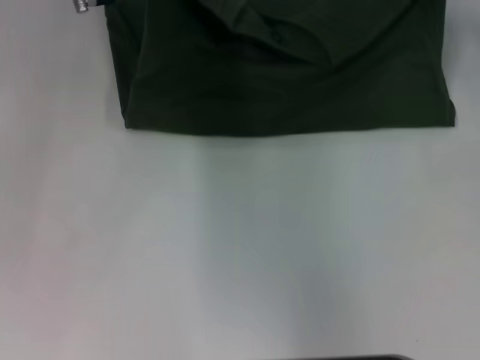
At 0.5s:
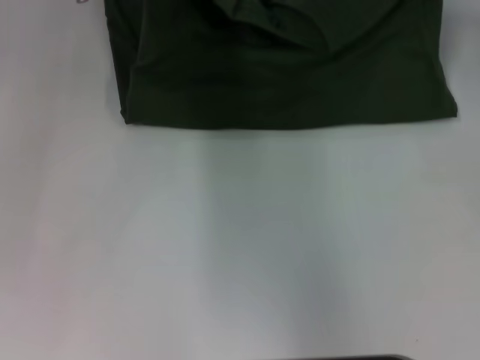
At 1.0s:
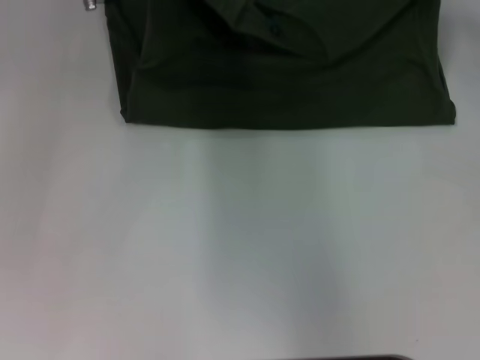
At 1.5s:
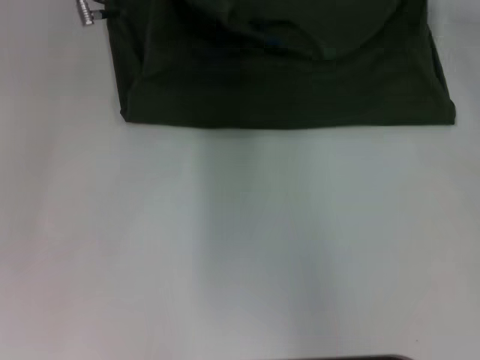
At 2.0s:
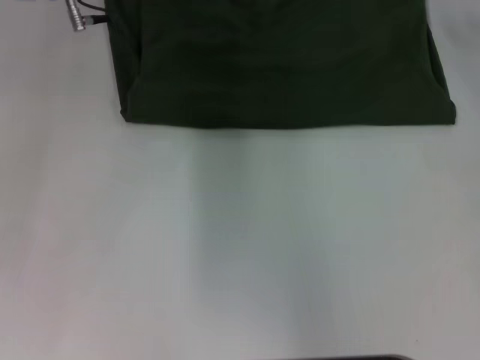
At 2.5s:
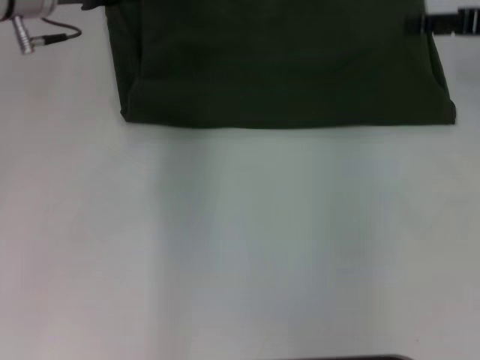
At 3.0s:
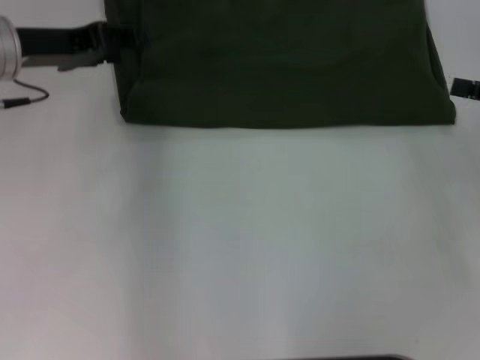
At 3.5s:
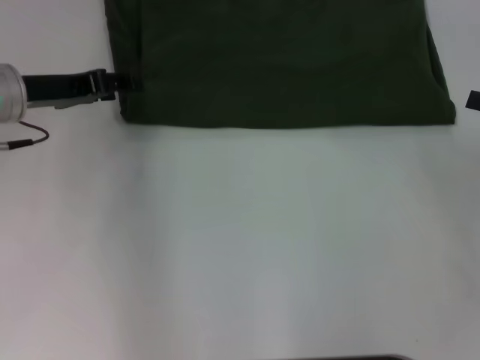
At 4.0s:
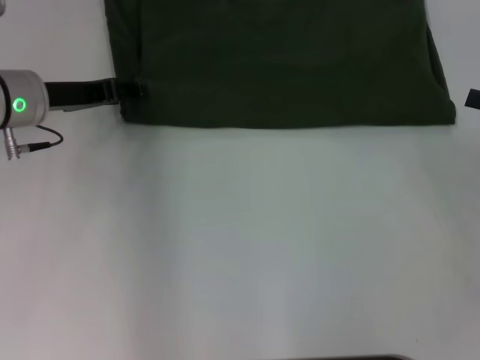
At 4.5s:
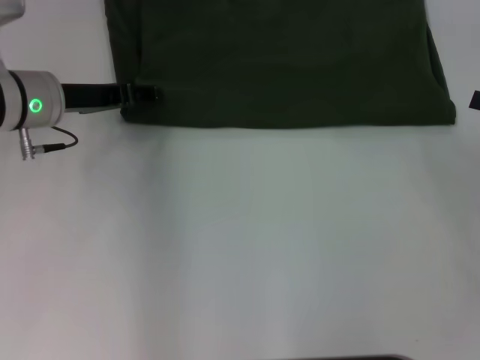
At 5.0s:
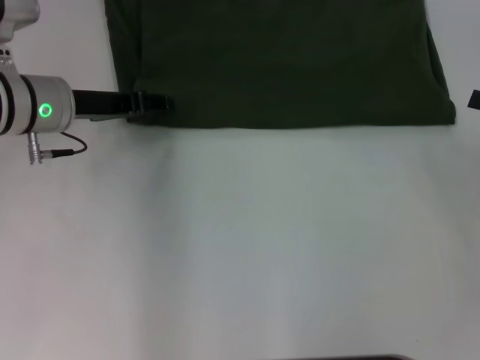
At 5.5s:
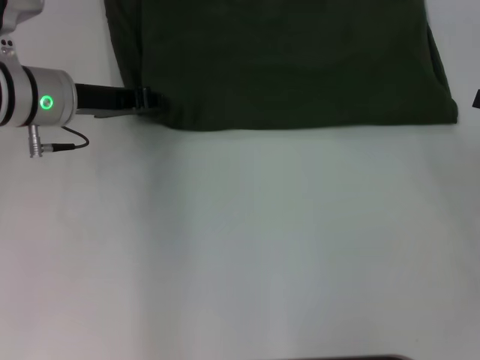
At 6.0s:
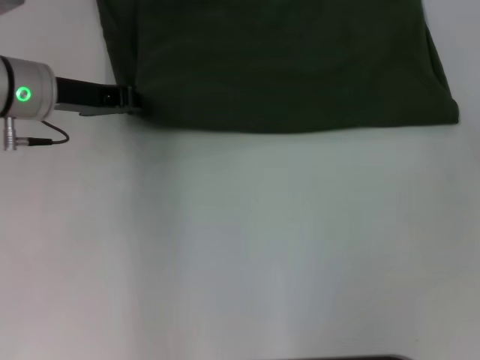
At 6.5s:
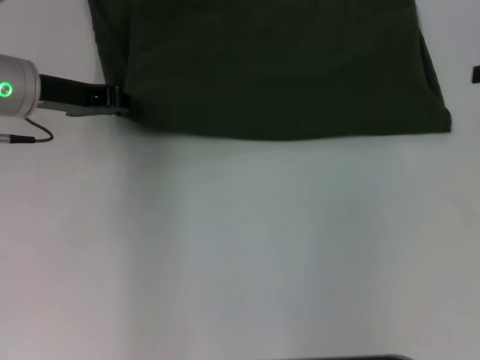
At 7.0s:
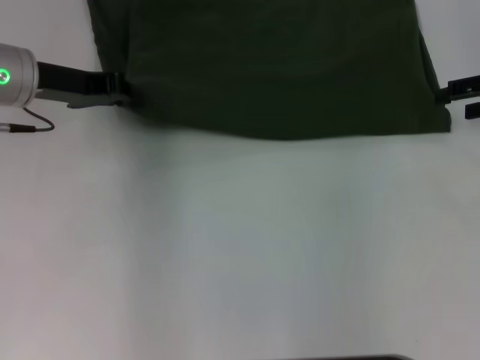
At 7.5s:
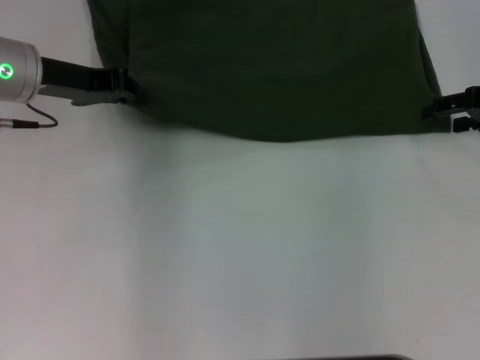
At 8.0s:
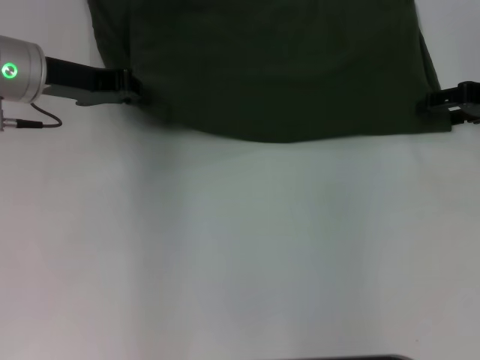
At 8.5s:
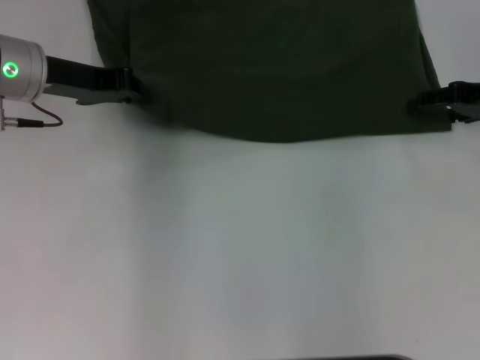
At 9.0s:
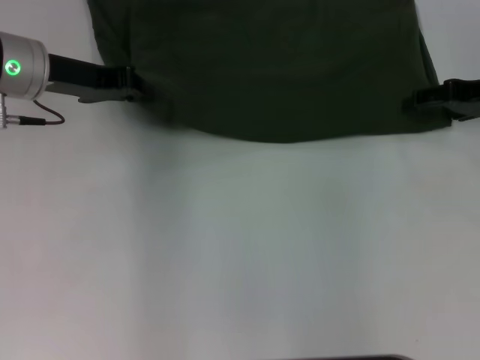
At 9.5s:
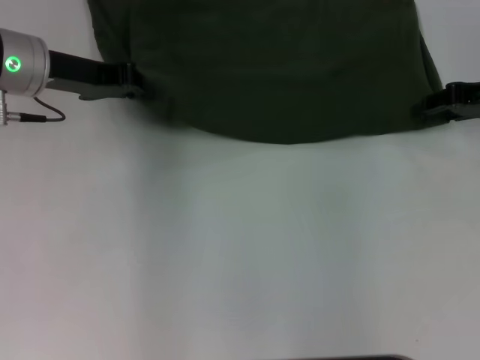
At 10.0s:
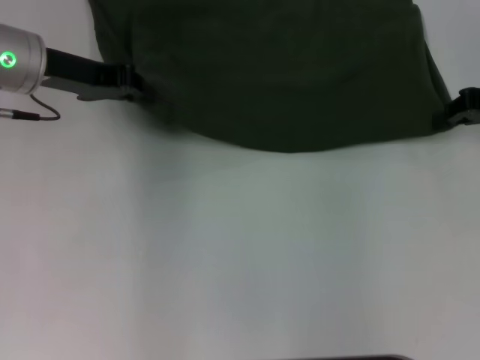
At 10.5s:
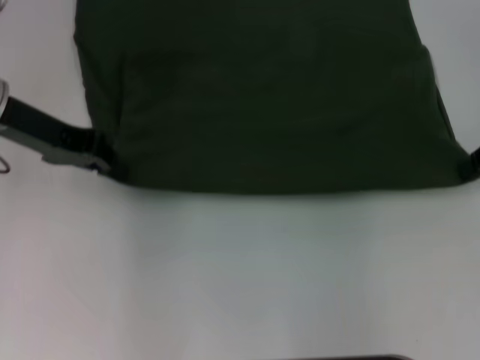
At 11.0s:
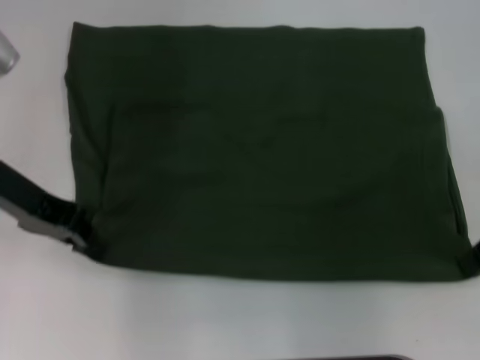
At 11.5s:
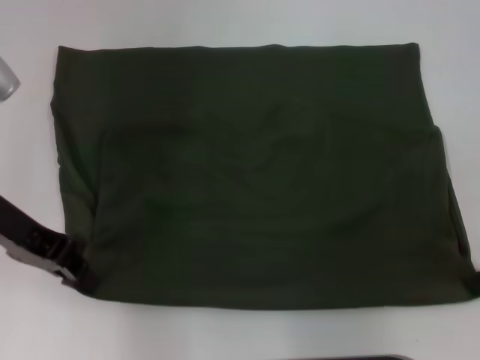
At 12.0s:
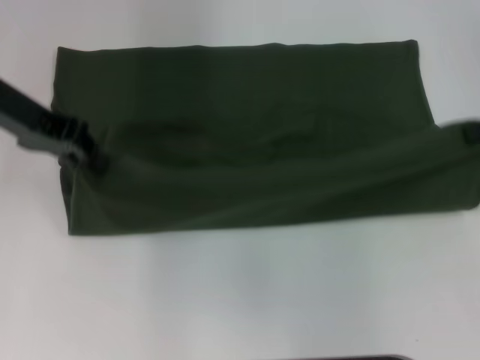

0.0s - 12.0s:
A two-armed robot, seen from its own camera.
Step, 2.0s - 11.0s: Pull the clothes with your left hand.
Step, 2.0s - 11.0s: Pull the clothes with your right hand.
0.0s - 2.0s: The left gripper opens, while the right gripper opens up.
2.0s - 4.0s: The right gripper heads backward, downward and to the right, covering roughly 25 cm; the left gripper heads backward, downward and to the left, covering about 15 cm.
4.0s - 6.0s: The right gripper changes place by approximately 5 cm. Meanwhile the left gripper closes its fingers.
6.0s - 8.0s: The right gripper is displaced to the left and forward by approximately 15 cm.
8.0s - 10.0s: The right gripper closes up.
10.0s - 12.0s: The right gripper moves upward, about 5 cm, and reaches about 10 cm backward, then returns; the left gripper reaches roughly 10 cm backward, then returns.

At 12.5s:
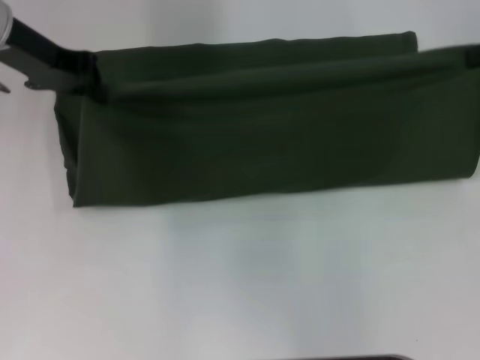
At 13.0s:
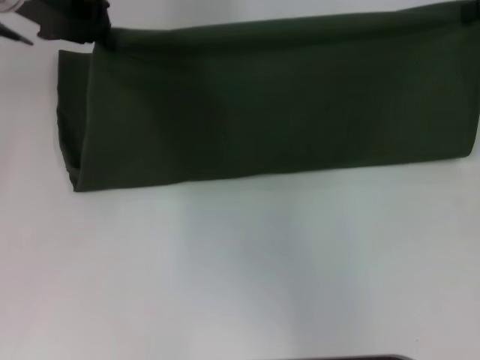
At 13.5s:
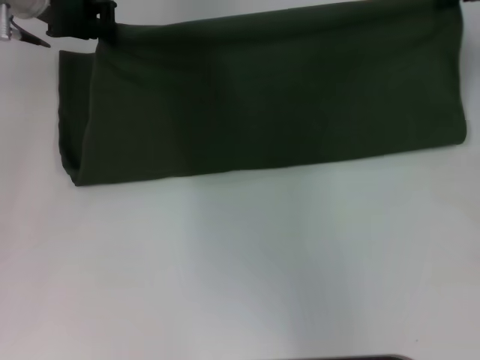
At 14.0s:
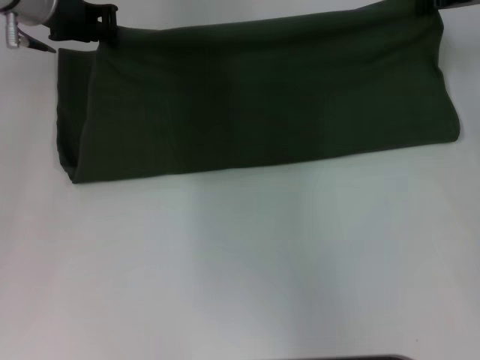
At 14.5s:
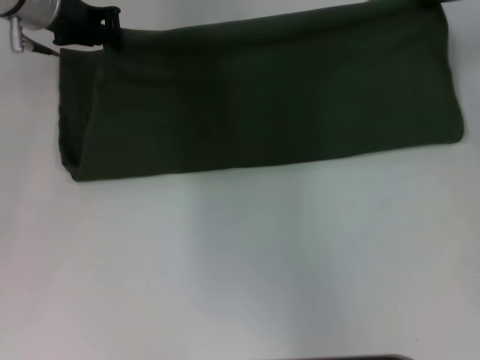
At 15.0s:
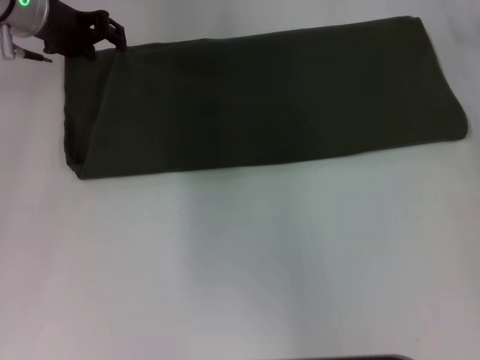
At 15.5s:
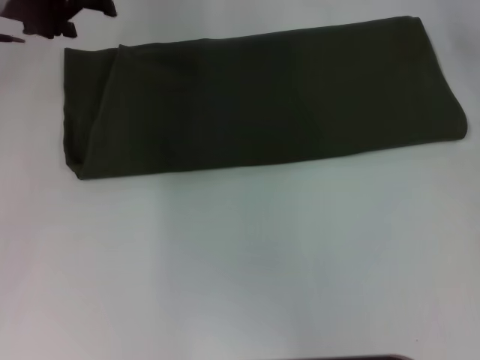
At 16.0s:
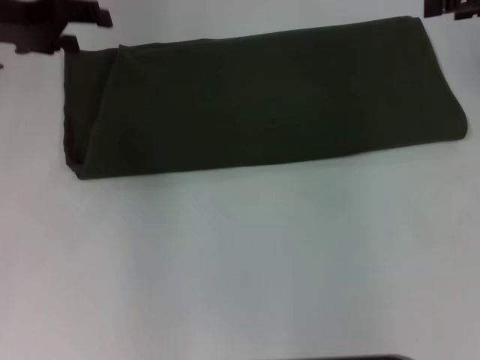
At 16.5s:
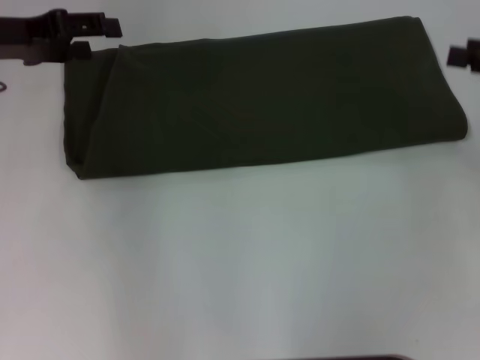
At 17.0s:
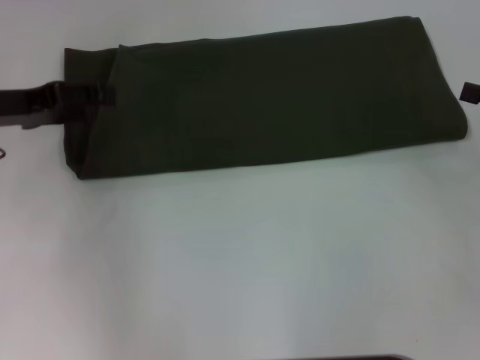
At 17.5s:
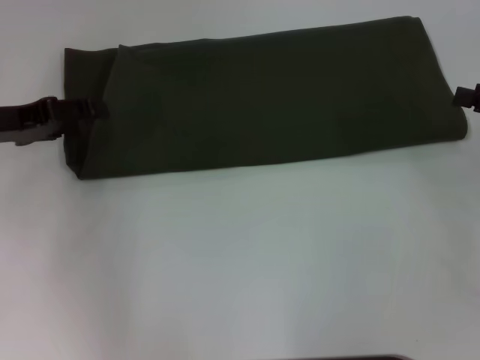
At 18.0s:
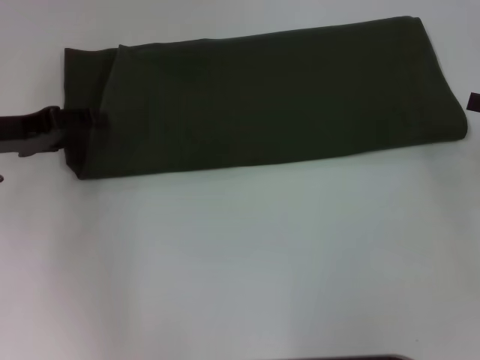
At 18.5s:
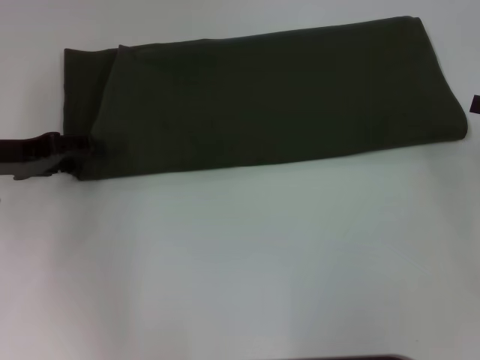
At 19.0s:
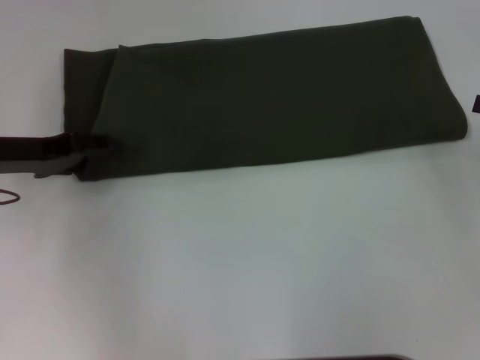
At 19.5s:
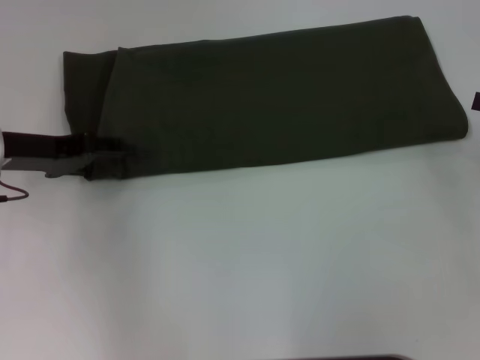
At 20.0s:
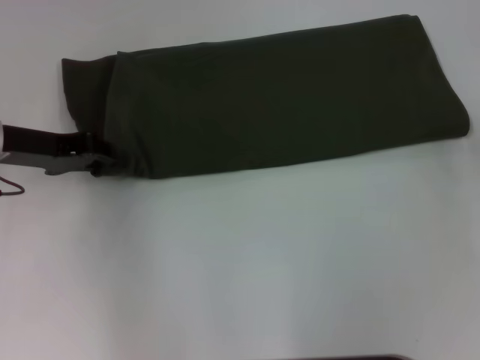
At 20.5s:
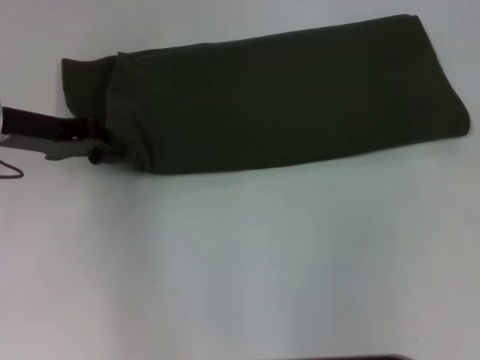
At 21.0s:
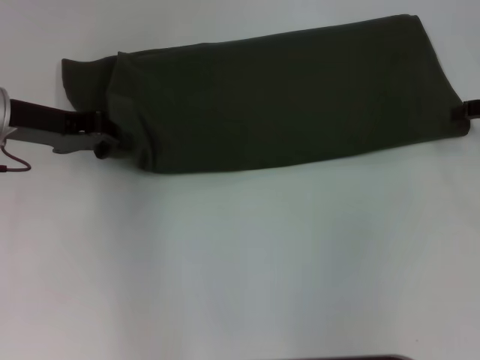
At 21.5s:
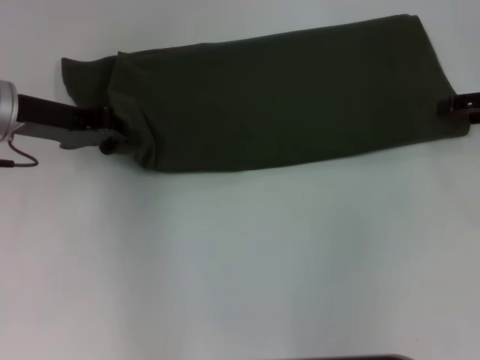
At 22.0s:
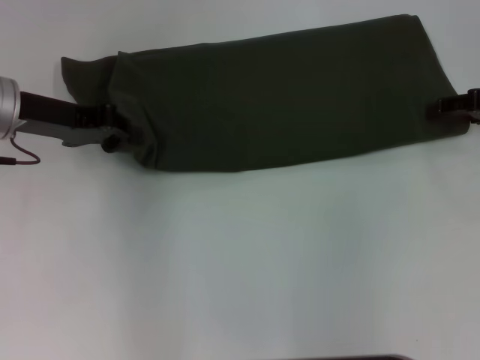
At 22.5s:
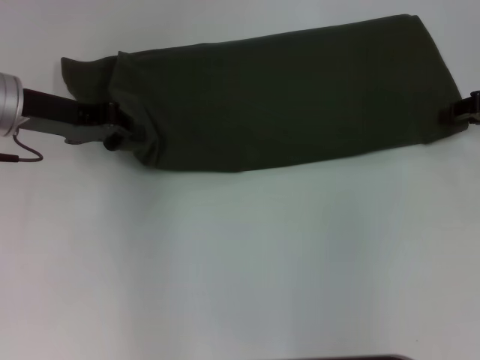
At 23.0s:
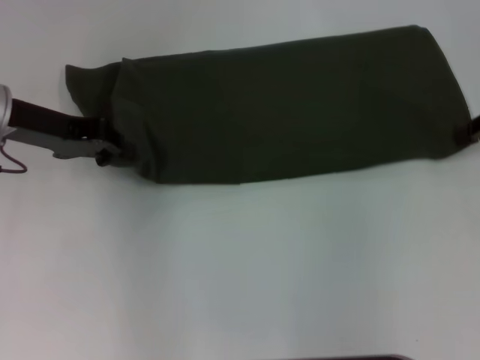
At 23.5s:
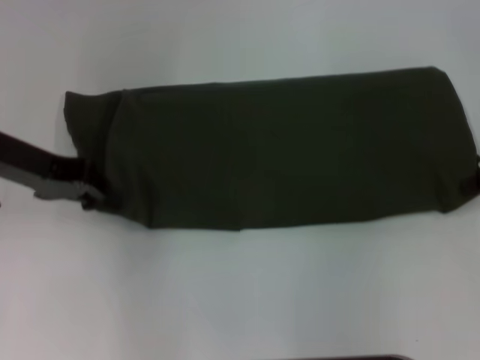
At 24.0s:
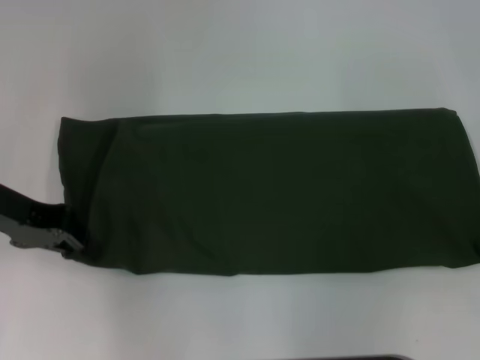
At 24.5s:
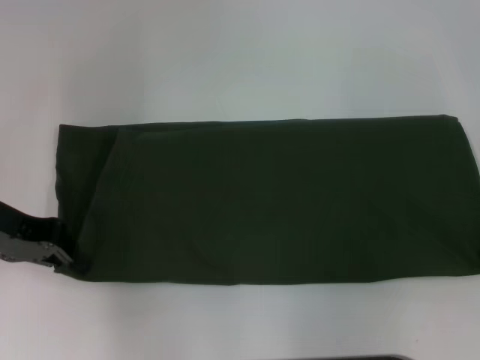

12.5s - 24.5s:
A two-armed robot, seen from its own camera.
Step, 12.5s - 14.5s: Fold the clothes with your left hand.
12.5s - 14.5s: The right gripper goes approximately 10 cm forward and to the left, while the left gripper changes place by approximately 5 cm.
14.5s - 16.5s: The left gripper shifts some 10 cm to the left and backward, and opens up, while the right gripper travels backward and to the right by approximately 15 cm, and opens up.
16.5s - 18.5s: The left gripper moves downward and backward, roughly 10 cm.
18.5s - 20.5s: The right gripper shifts about 5 cm forward, while the left gripper shifts by about 5 cm, and closes.
20.5s - 22.5s: The right gripper changes place by approximately 5 cm, and closes its fingers.
22.5s - 24.5s: The two grippers go about 5 cm backward. The right gripper closes.

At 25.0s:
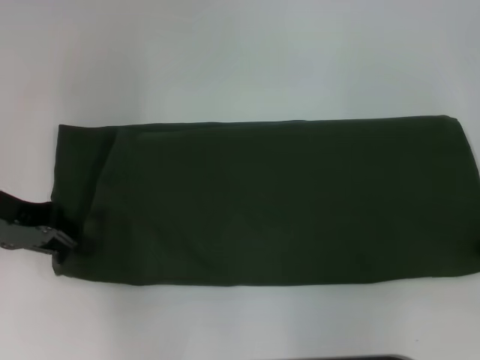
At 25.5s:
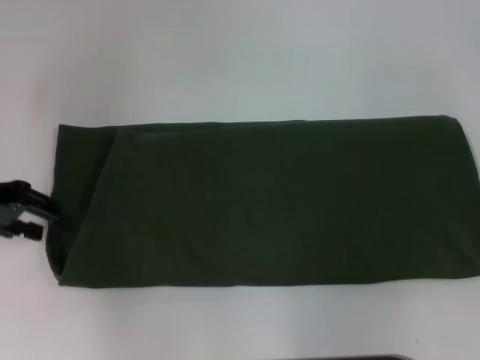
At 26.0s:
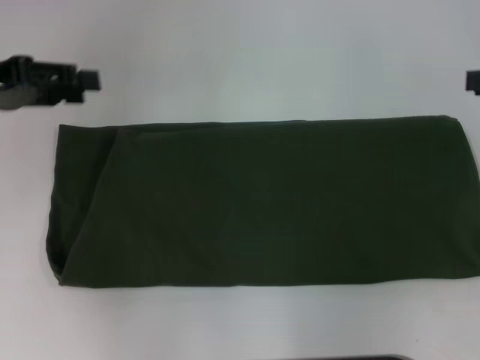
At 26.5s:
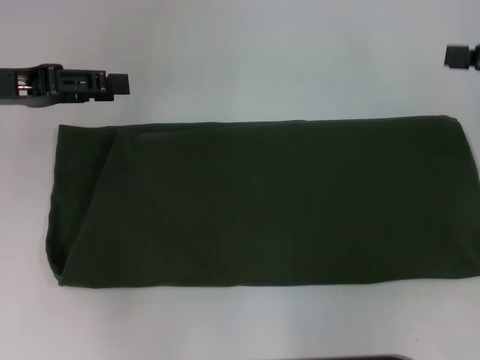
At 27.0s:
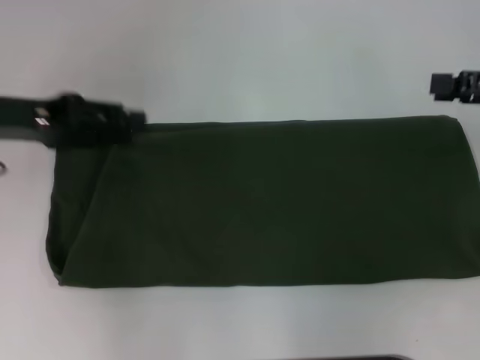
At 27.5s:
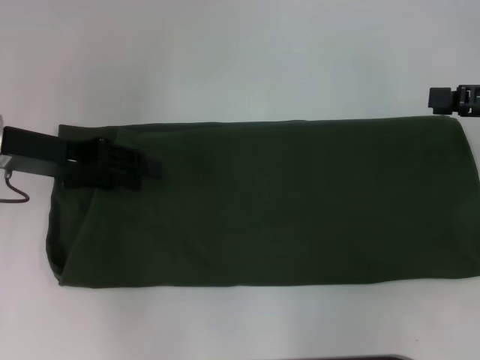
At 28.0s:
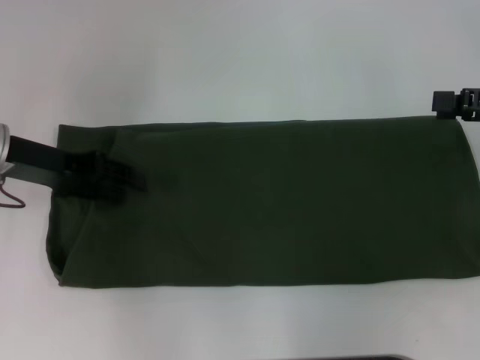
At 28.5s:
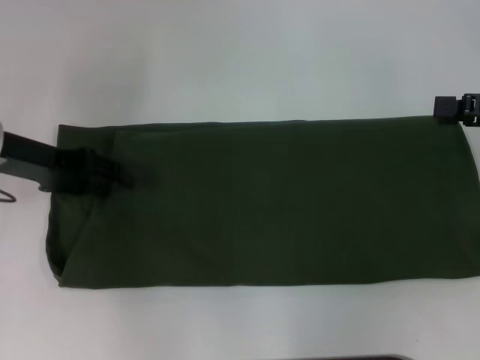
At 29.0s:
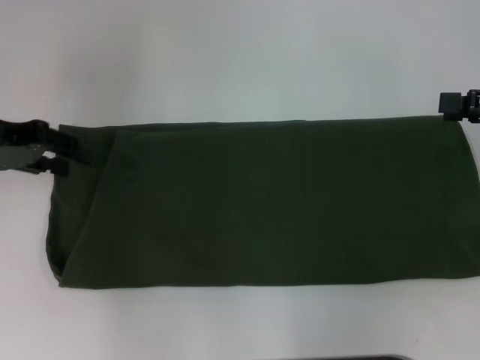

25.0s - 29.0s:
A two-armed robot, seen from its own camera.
25.0s - 27.0s: The left gripper opens up; the right gripper opens its fingers.
